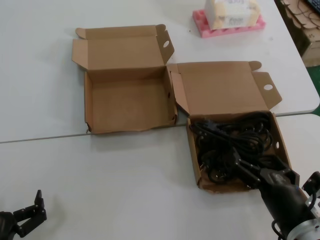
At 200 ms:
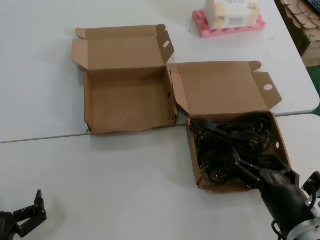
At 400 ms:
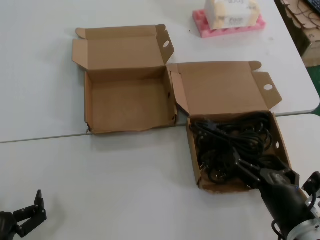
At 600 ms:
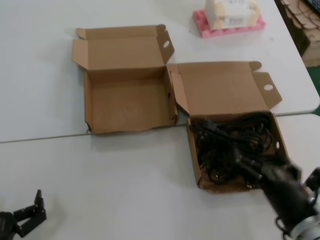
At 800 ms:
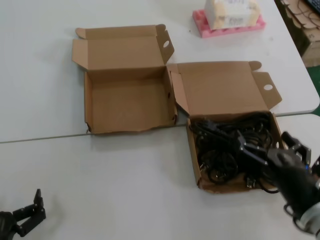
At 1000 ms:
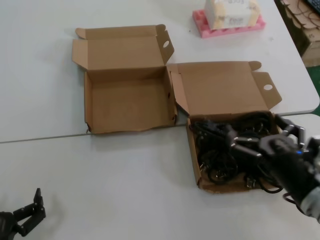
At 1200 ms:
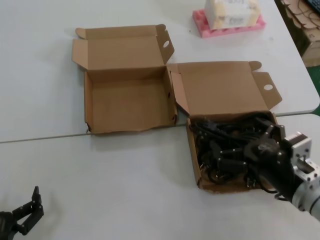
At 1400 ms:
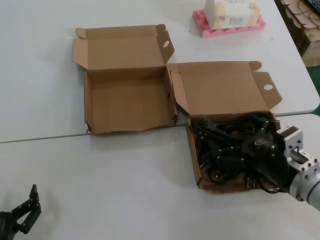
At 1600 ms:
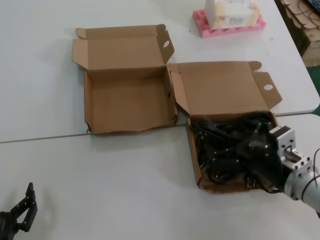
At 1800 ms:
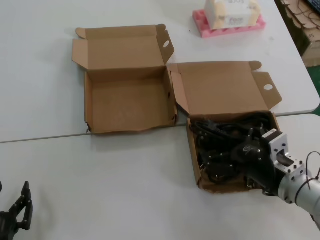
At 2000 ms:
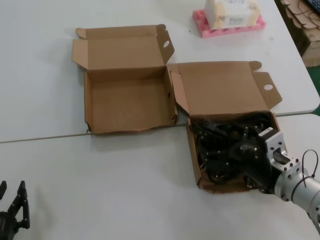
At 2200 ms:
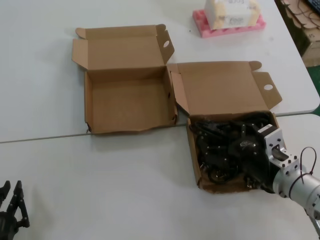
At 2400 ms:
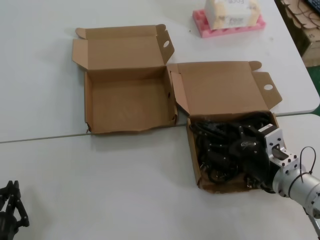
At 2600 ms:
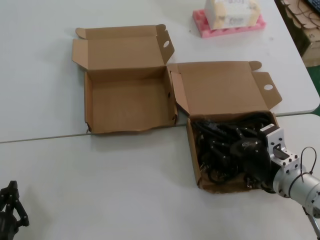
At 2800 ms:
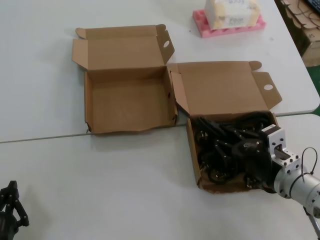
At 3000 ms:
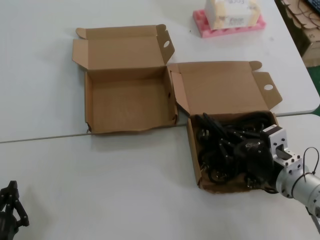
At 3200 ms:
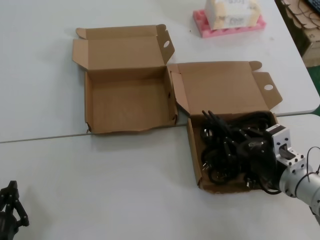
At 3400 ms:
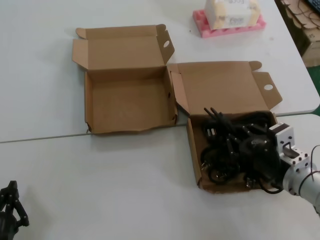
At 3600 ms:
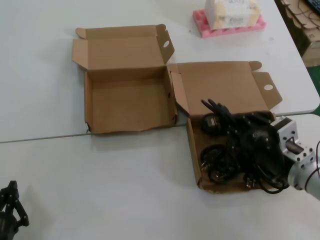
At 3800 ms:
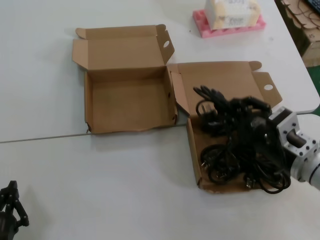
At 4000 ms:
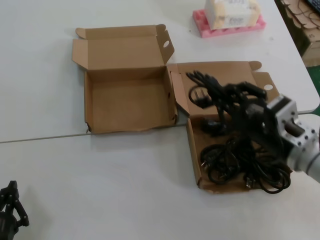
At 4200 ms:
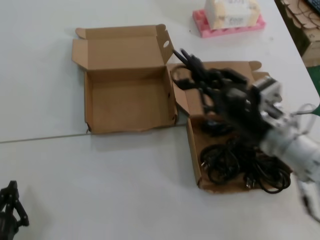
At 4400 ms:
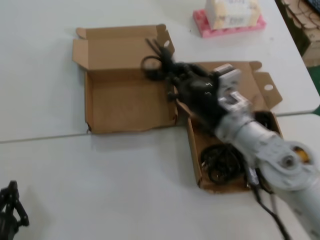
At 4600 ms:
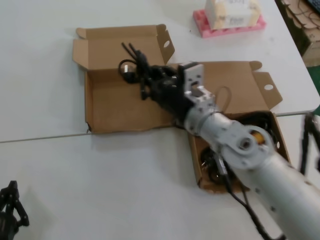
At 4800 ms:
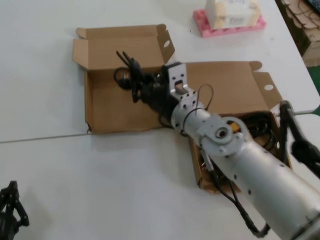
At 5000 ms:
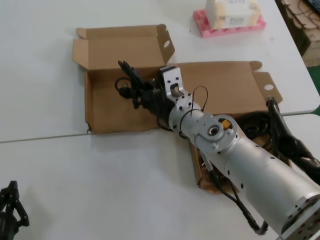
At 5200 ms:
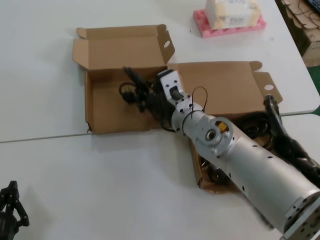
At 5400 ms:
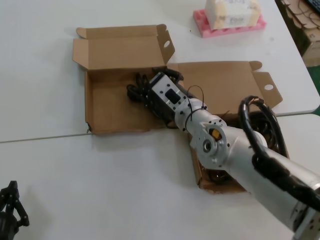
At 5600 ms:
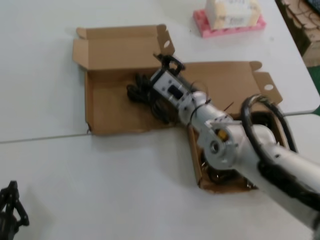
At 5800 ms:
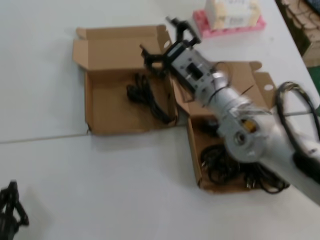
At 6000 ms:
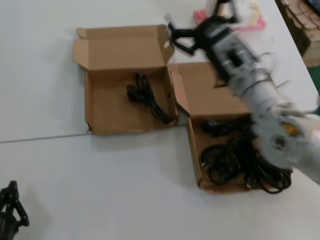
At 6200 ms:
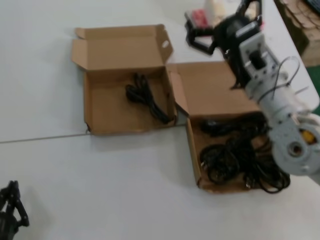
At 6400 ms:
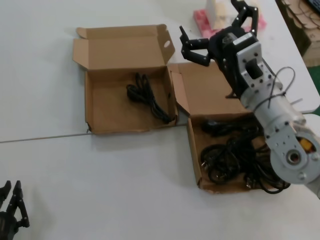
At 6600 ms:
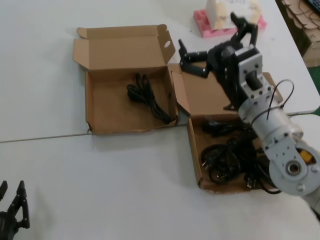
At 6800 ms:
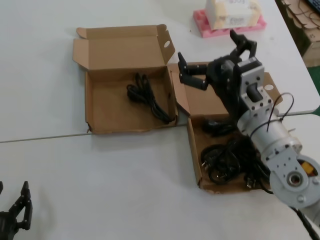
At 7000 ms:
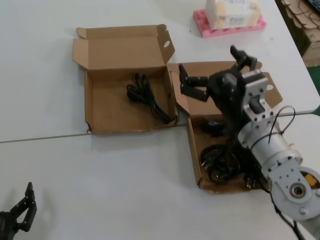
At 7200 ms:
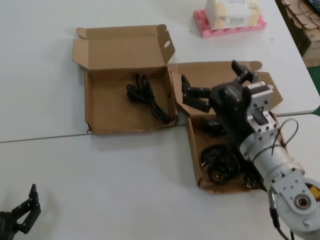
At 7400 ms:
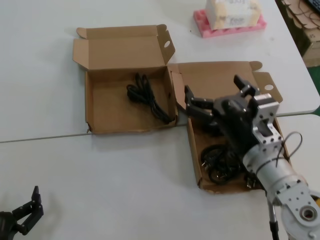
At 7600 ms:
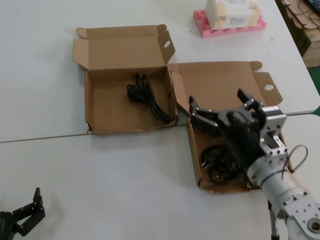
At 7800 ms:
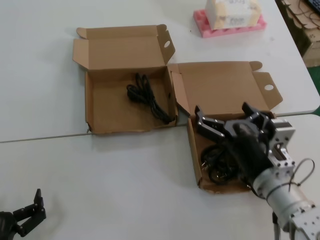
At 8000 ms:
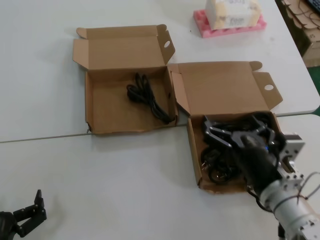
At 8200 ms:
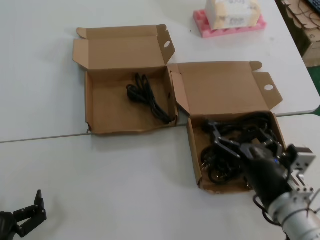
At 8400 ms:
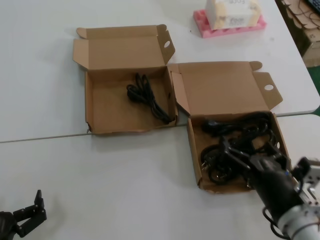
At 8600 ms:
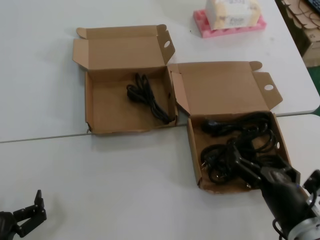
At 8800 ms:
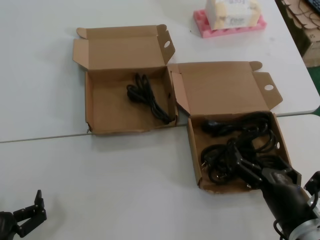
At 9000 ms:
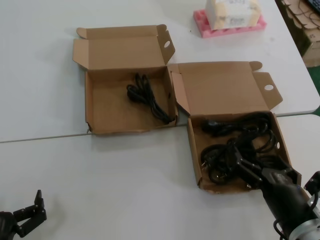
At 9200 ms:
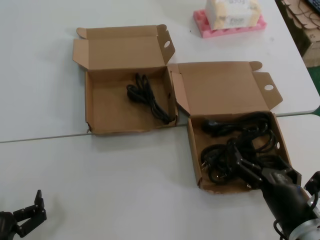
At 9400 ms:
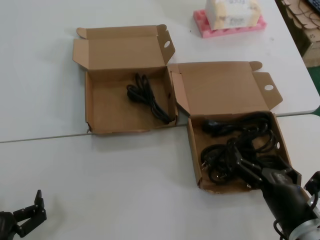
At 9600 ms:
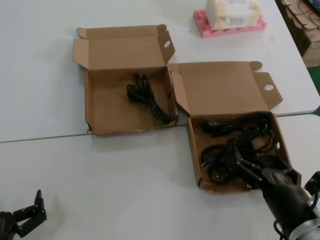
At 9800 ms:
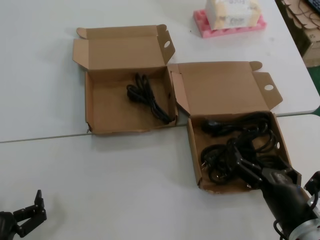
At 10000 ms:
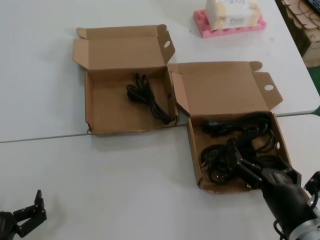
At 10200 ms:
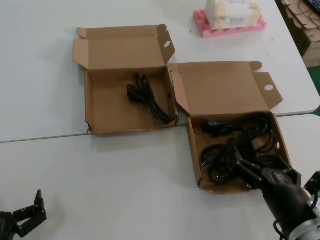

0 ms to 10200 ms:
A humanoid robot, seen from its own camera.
Task of the whole recording: Pick up the power cord from the box containing it and place it in another box.
Step, 0 ms to 3000 ms: Grasp the data cable.
Step, 3400 ms to 5600 ms: Place the data cable in the another box.
0 ms to 1400 ms: The right hand goes roughly 10 cm forward and upward.
1400 ms to 3000 ms: There are only small adjustments of the hands.
3000 ms to 4400 ms: The right hand goes roughly 15 cm to the left and upward.
4400 ms to 5800 ms: The right hand is displaced forward by about 5 cm.
5800 ms to 7200 ms: The right hand shifts about 15 cm backward, downward and to the right.
7200 ms to 8800 ms: The right hand travels backward, downward and to the right by roughly 15 cm.
8800 ms to 10200 ms: Neither hand changes place.
